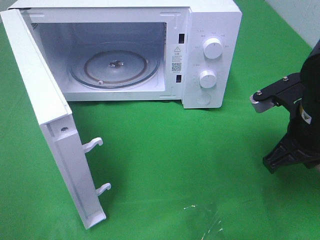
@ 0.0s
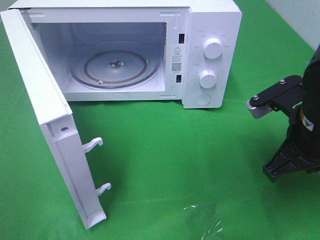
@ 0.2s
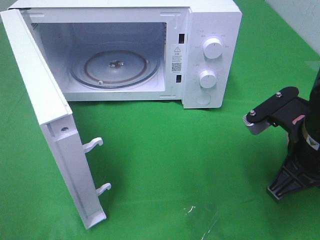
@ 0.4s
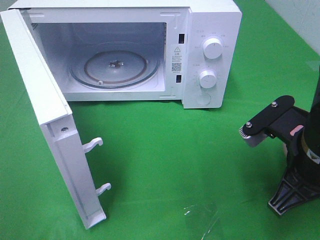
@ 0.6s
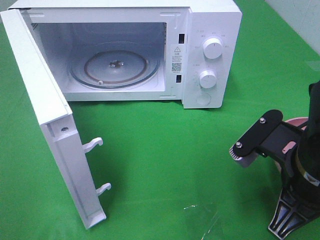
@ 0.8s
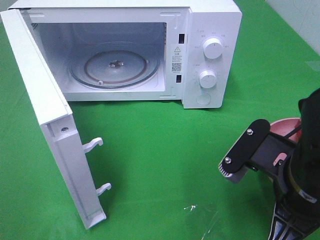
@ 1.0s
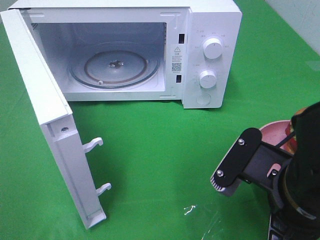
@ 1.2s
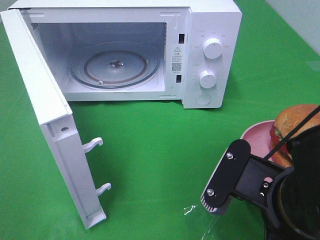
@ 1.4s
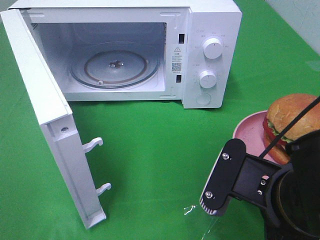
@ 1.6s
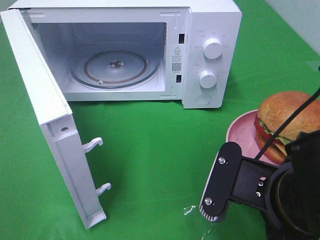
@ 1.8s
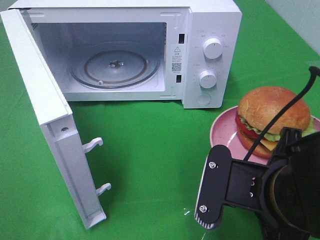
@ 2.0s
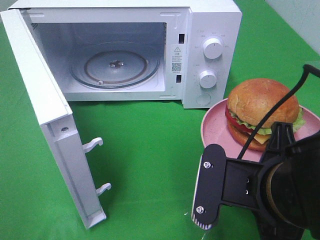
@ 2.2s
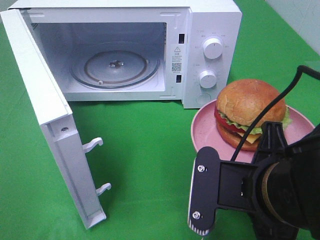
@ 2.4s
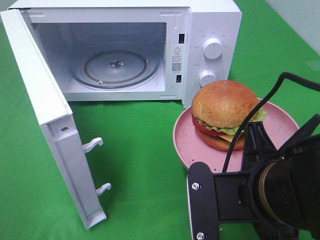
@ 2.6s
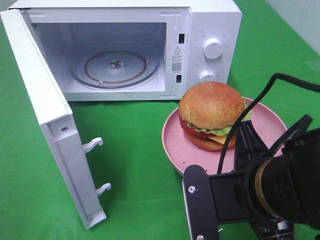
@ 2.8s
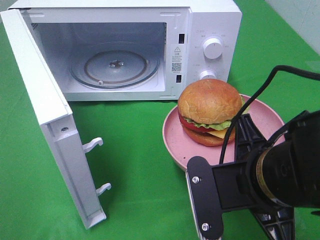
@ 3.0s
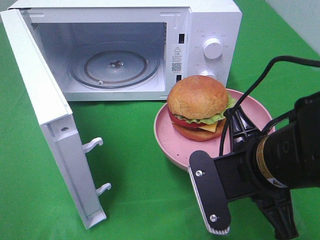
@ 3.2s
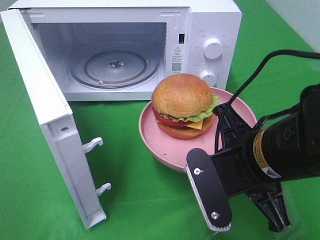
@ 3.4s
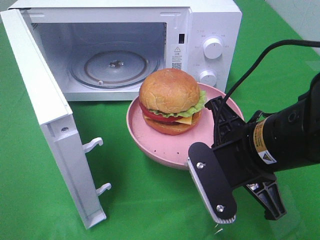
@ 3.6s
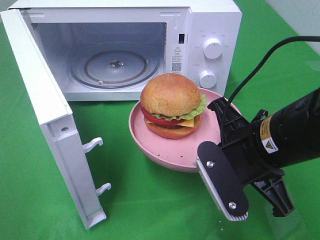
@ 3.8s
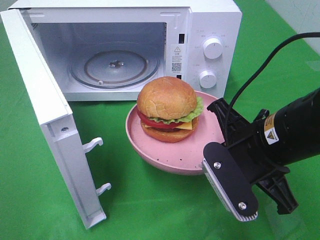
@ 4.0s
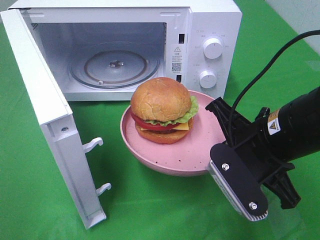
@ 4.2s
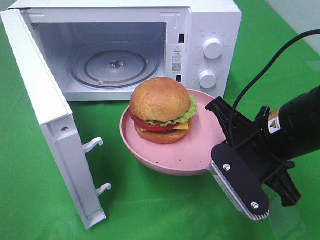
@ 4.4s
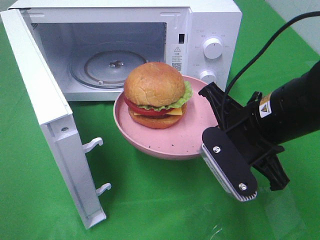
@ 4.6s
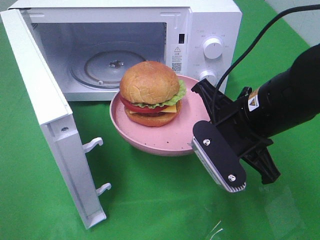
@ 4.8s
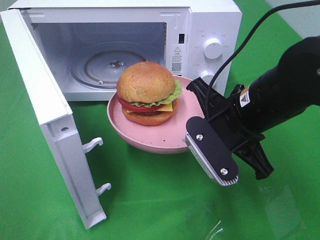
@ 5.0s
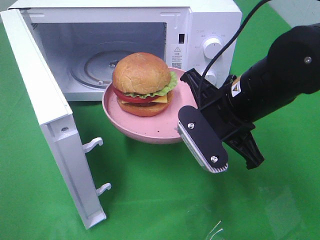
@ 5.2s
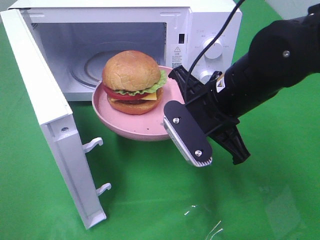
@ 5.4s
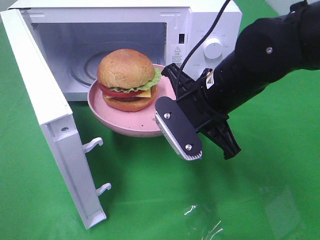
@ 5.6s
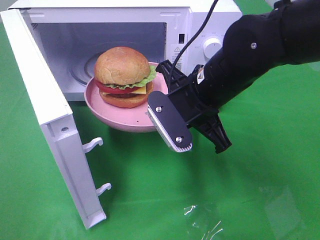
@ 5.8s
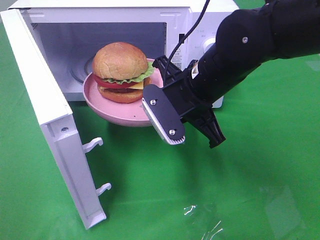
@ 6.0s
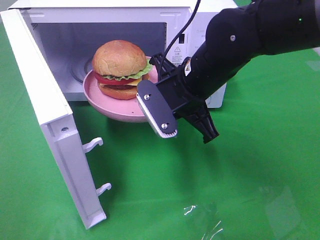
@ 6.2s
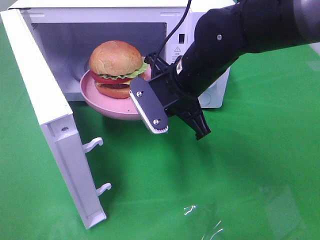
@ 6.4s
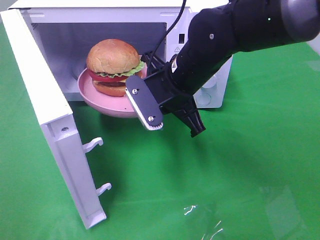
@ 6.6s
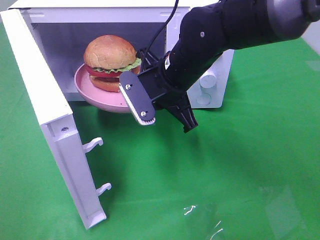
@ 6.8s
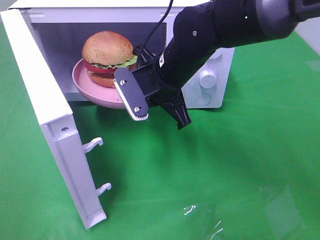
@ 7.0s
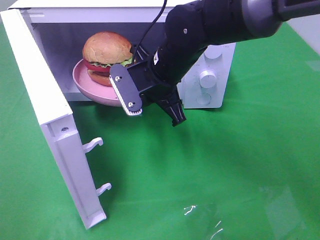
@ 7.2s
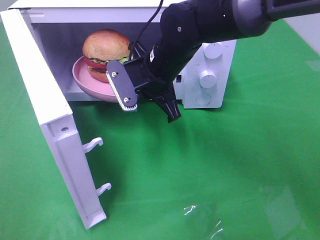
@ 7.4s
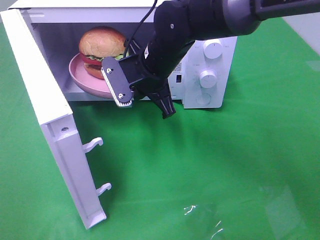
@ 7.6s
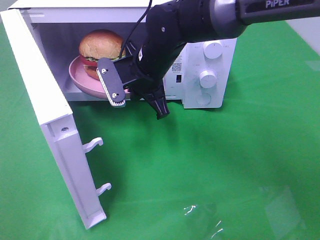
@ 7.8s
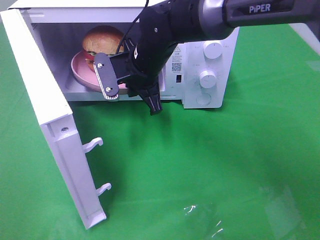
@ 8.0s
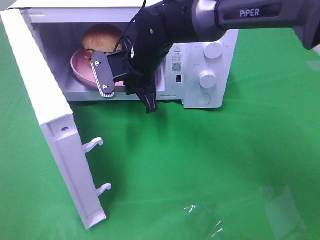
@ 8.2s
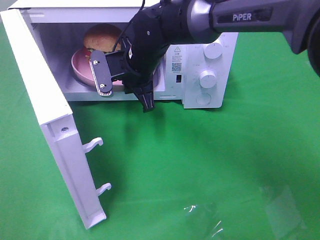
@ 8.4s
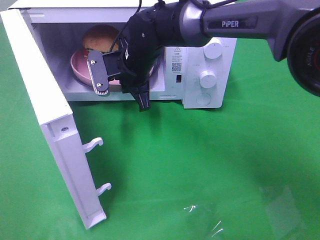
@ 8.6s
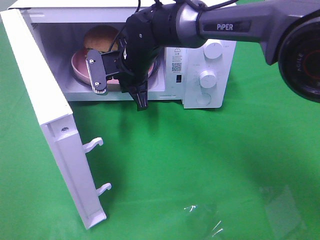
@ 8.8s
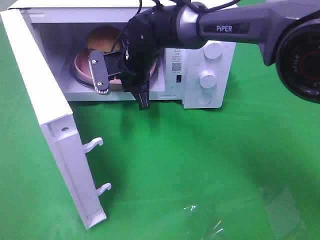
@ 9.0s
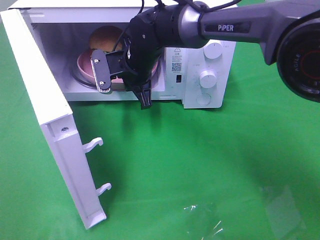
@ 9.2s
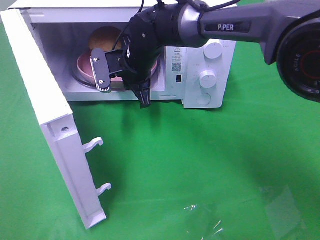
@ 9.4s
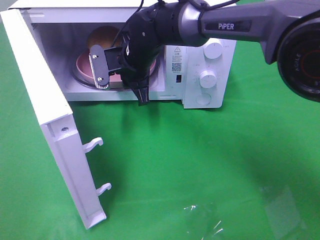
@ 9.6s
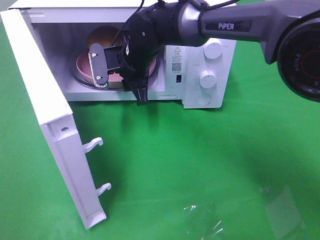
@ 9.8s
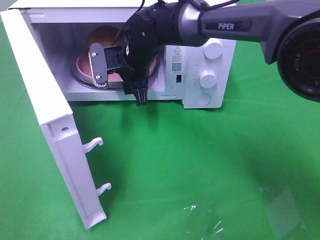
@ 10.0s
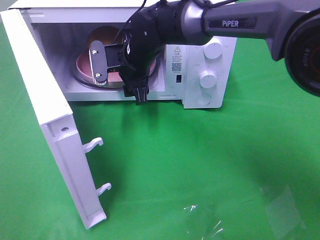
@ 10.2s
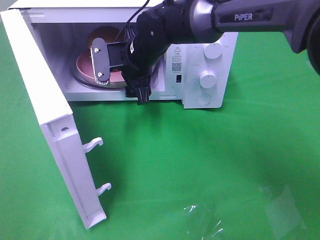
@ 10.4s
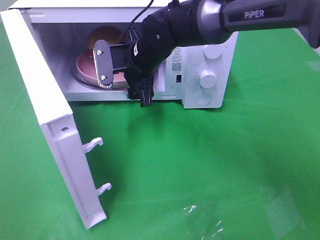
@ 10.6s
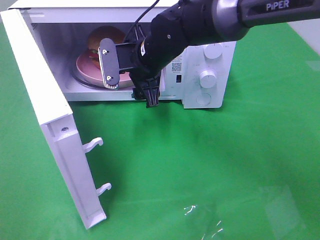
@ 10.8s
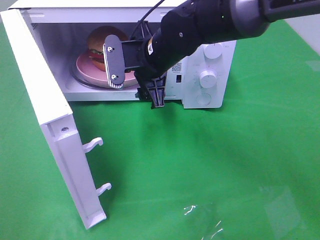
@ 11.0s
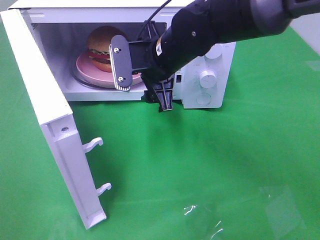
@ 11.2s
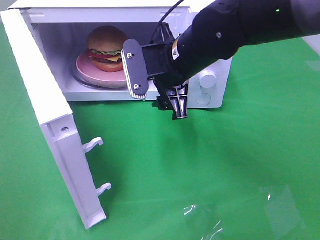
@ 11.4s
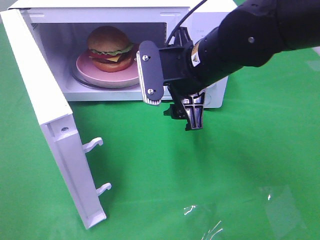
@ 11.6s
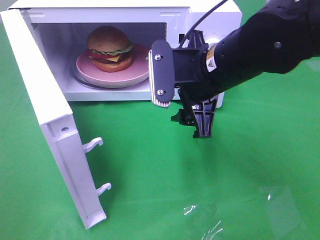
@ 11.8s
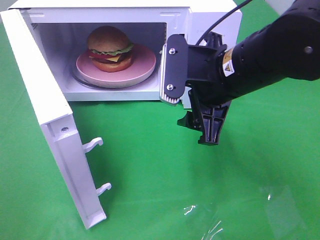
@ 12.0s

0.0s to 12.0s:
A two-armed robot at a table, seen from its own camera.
Task of the whole recording: Heat the burger.
Step, 0.0s to 10.6s: Right hand: place the plate in the microwave.
0.0s to 1.6s: The right gripper goes approximately 15 cm backward and to the left.
3.0s to 4.4s: The right gripper travels forward by approximately 5 cm.
4.4s to 6.0s: The right gripper goes about 10 cm forward and to the left.
6.0s to 7.6s: The right gripper is displaced forward and to the left by some 10 cm.
7.6s to 9.0s: The right gripper moves forward, roughly 5 cm.
9.0s to 10.4s: The right gripper opens.
10.4s to 12.0s: The right gripper is displaced backward and to the right by approximately 20 cm.

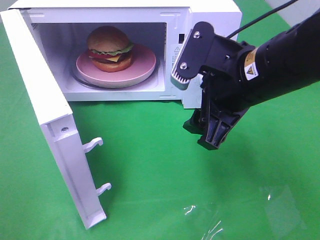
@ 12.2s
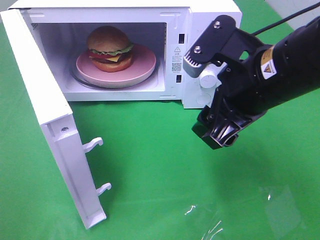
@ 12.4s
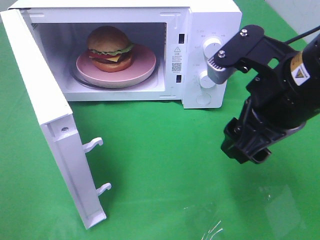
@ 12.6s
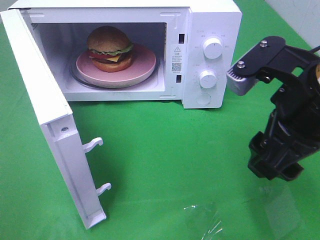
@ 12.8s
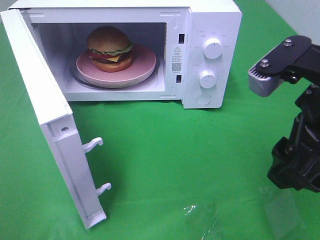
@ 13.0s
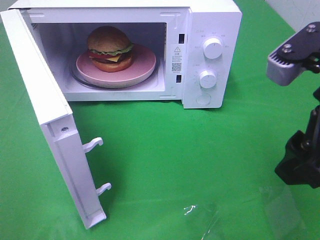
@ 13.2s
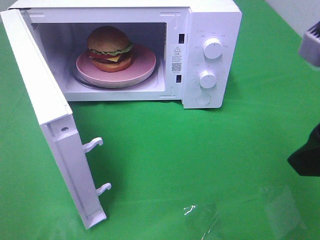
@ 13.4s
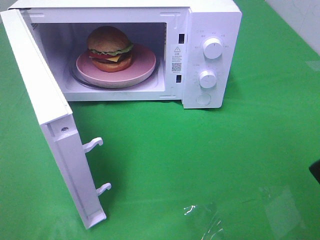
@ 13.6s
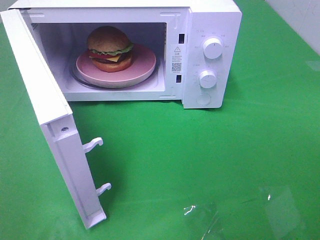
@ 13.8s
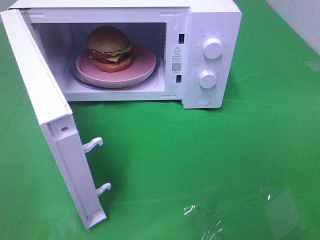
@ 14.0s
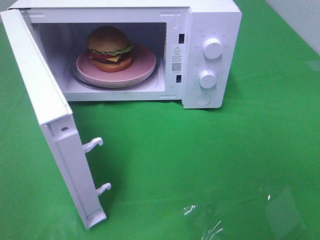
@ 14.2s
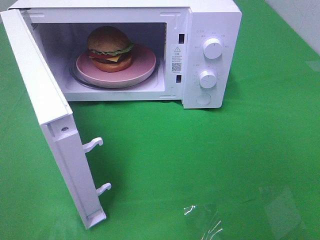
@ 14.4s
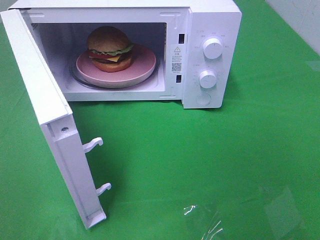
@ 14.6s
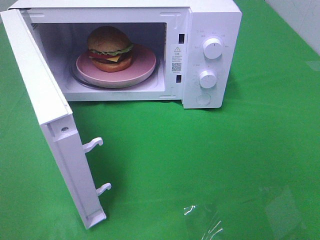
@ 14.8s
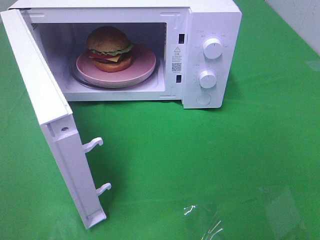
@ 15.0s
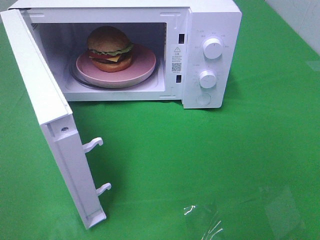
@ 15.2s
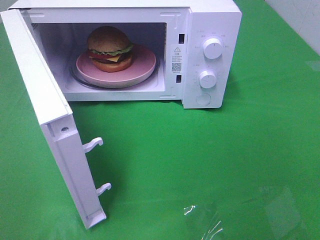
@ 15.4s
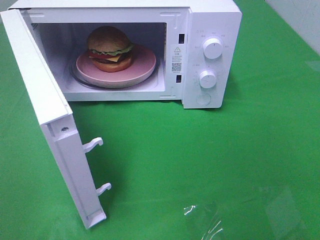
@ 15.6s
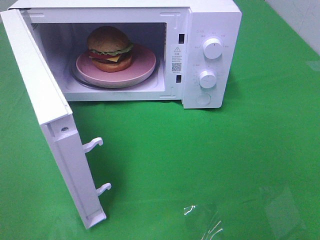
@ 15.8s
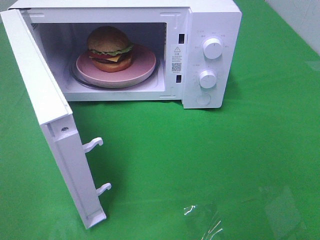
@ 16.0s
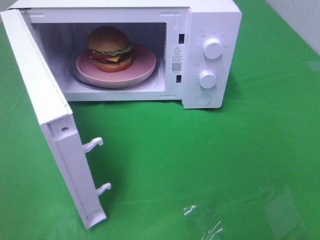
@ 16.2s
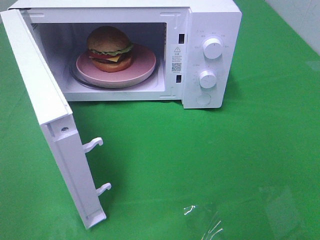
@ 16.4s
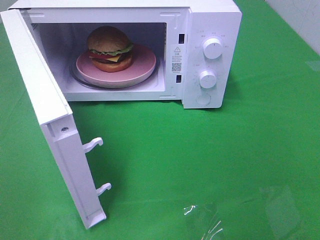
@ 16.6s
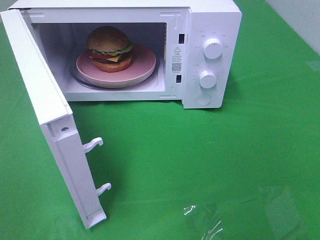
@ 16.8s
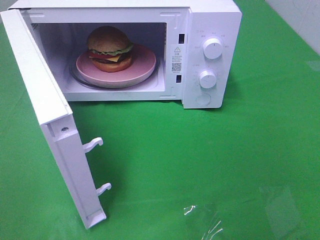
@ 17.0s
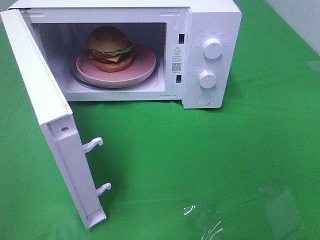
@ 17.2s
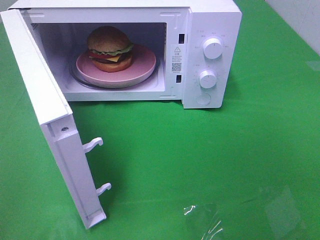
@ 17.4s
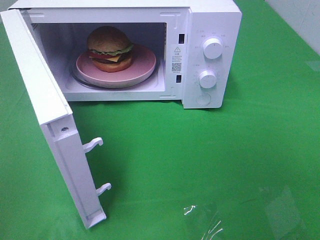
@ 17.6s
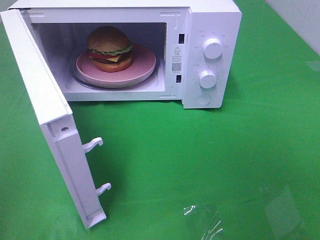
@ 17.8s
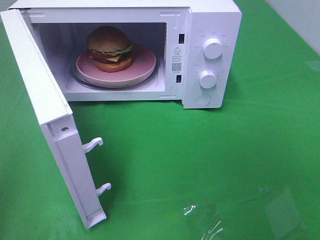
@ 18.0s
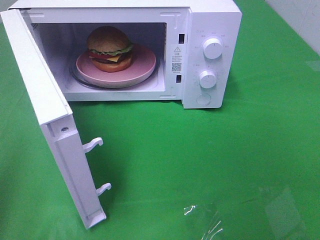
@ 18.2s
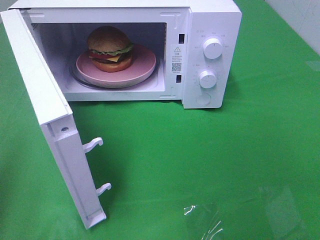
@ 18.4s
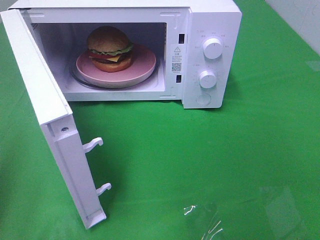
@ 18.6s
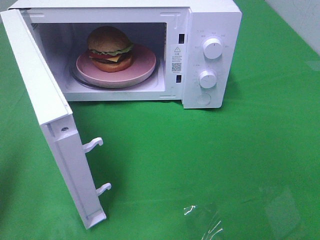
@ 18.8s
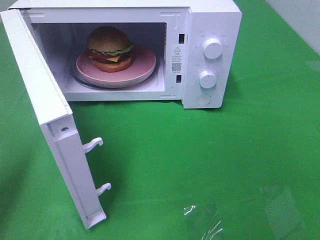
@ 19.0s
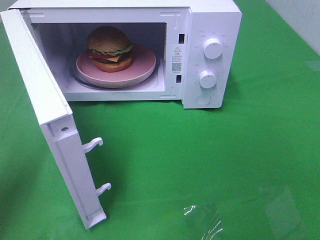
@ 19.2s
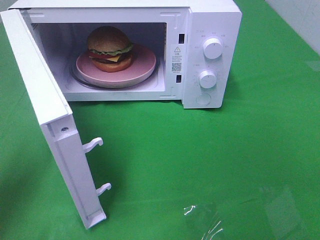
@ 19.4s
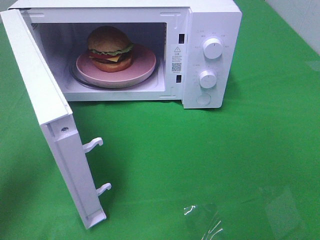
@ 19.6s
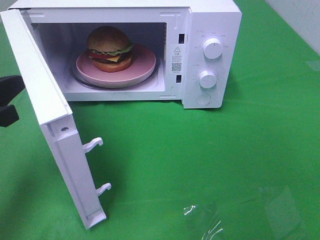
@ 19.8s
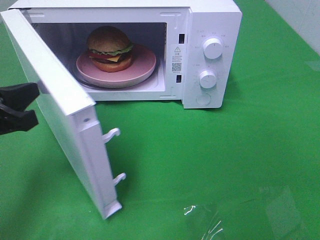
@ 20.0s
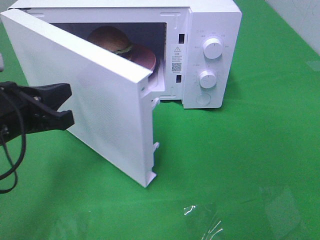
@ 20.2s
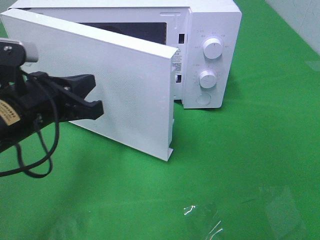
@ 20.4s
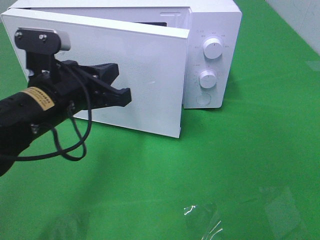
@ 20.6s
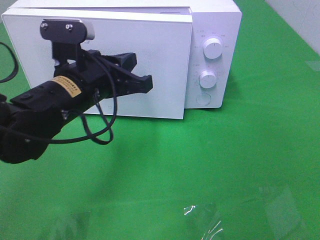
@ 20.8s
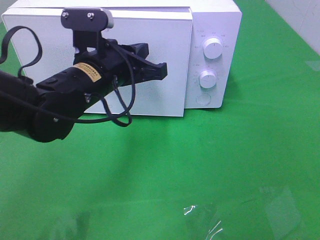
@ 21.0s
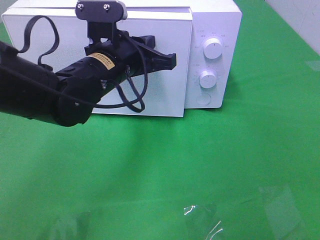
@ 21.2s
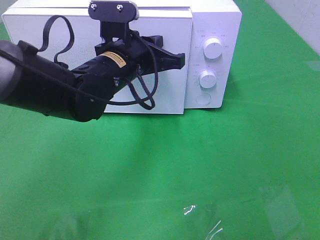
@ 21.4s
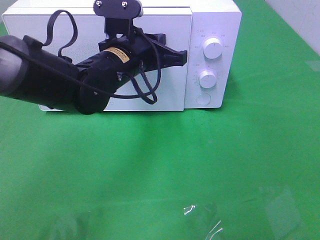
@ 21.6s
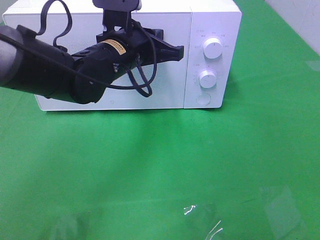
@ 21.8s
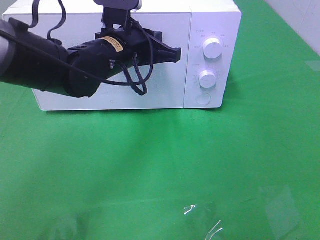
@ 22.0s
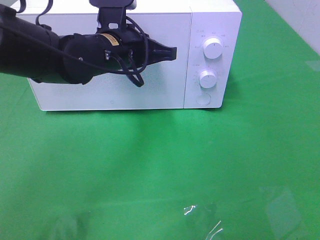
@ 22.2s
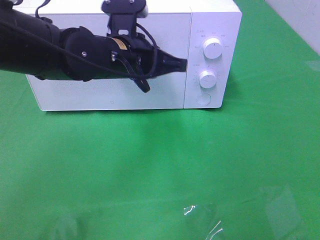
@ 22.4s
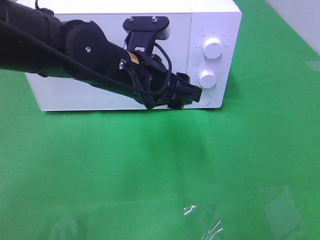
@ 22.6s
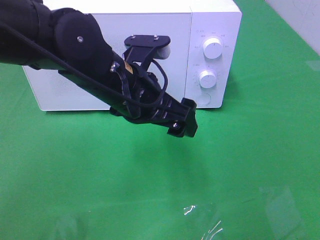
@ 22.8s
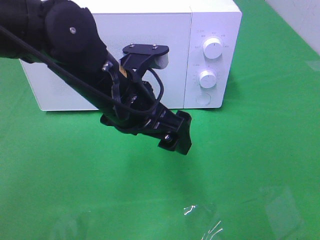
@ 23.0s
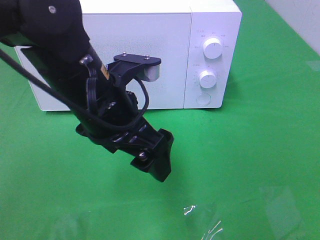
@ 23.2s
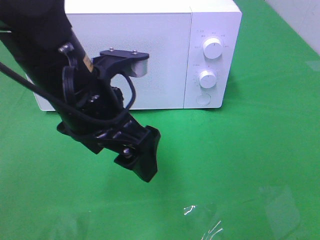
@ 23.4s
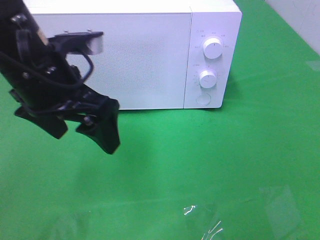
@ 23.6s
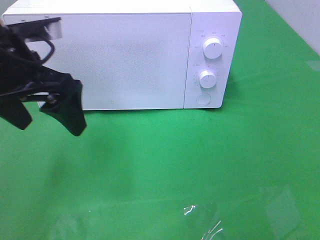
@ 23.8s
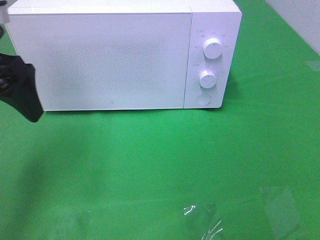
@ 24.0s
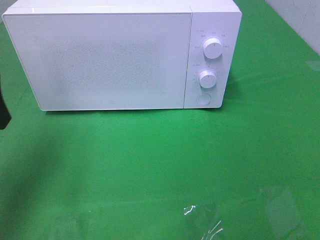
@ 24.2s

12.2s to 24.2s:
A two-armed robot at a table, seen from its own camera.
Task of the whole recording: Heat the burger.
Step, 12.2s to 22.4s: Left hand: close the microwave door.
12.2s to 13.8s: The right gripper moves backward, to the right and upward, about 20 cm.
15.2s to 16.6s: Both grippers stay put.
18.2s to 19.8s: The left gripper shifts approximately 15 cm forward, downward and to the right.
19.8s to 21.2s: The left gripper travels to the right and forward by some 20 cm.
21.2s to 22.6s: The left gripper opens.
22.6s to 24.2s: The left gripper travels to the left by approximately 25 cm.
